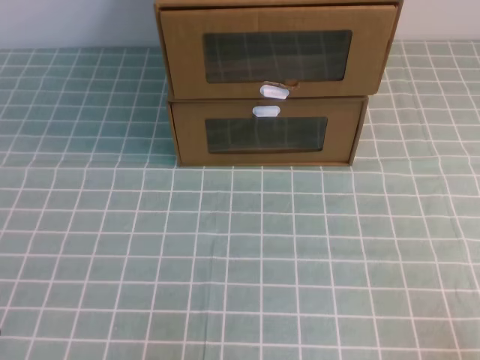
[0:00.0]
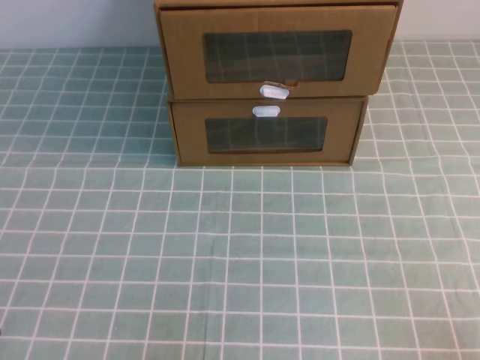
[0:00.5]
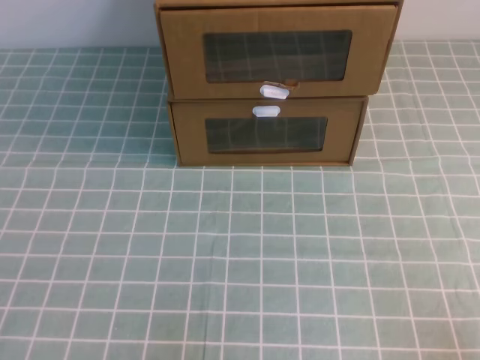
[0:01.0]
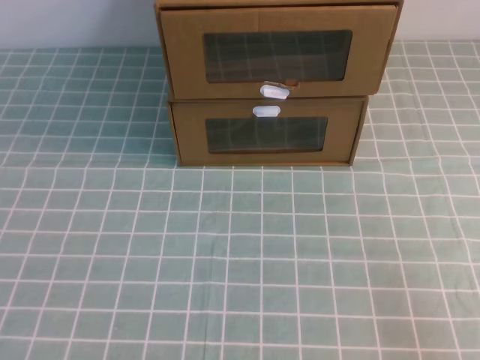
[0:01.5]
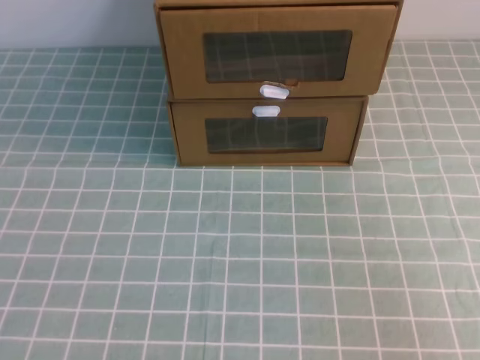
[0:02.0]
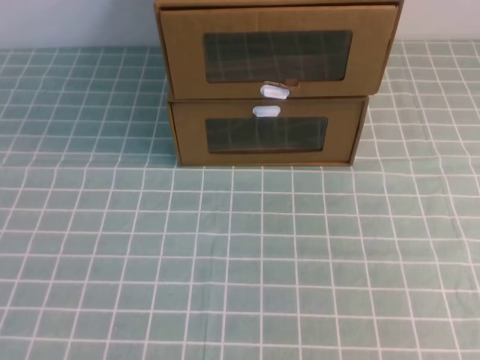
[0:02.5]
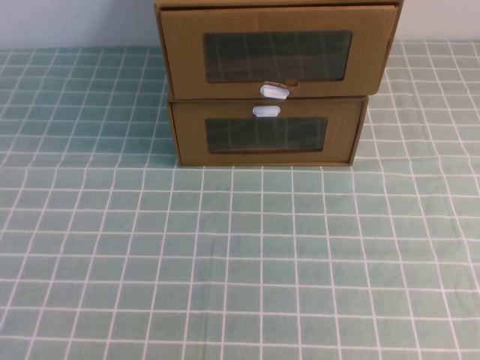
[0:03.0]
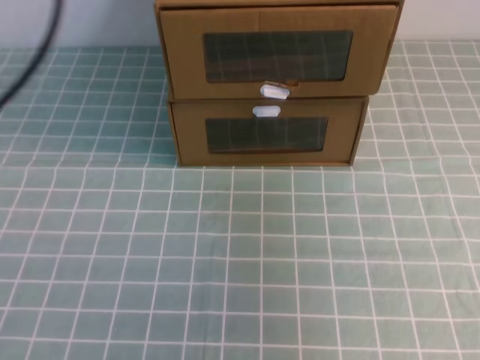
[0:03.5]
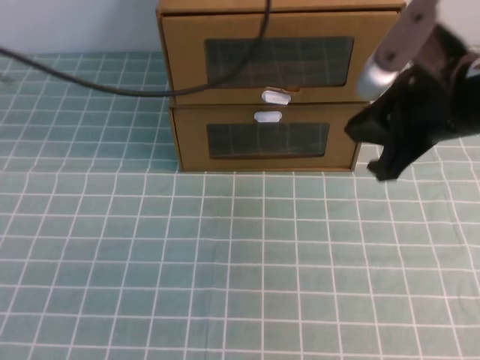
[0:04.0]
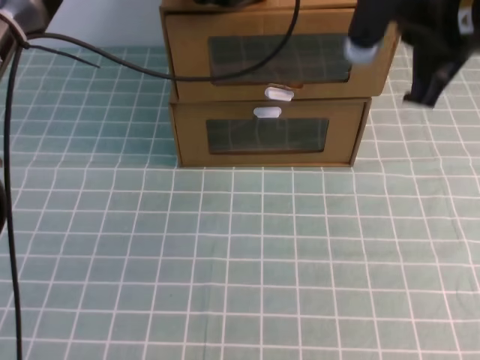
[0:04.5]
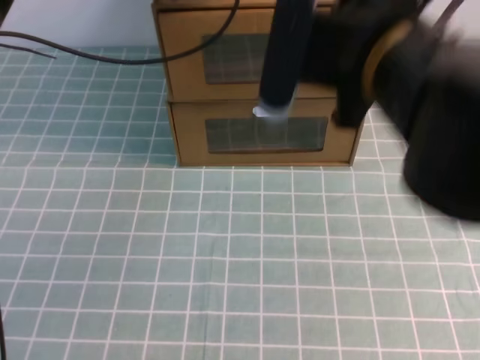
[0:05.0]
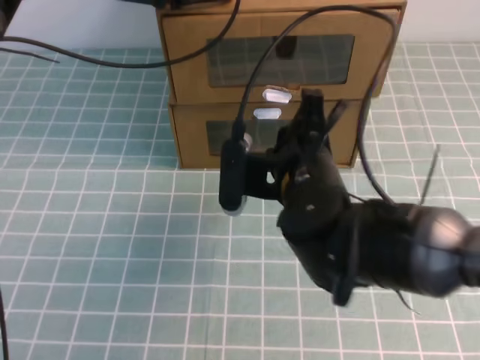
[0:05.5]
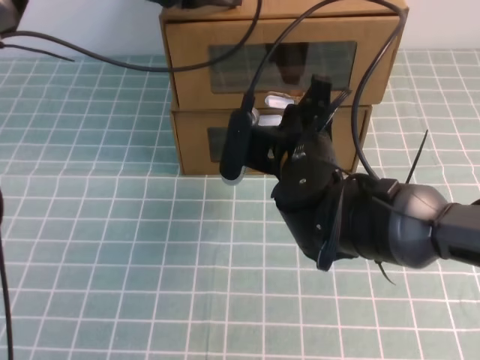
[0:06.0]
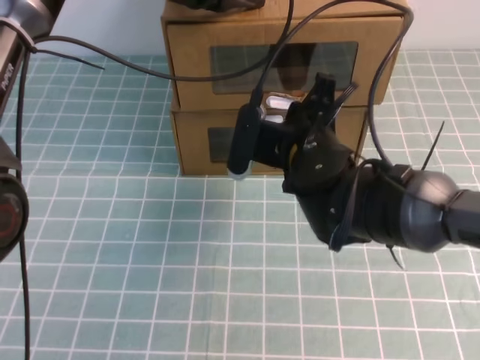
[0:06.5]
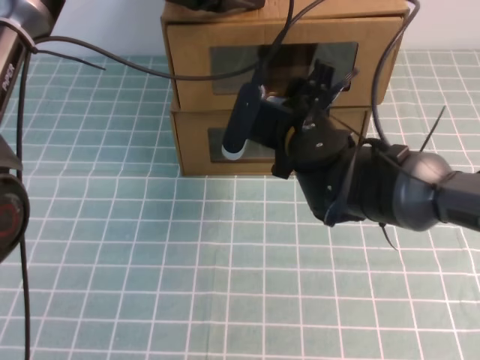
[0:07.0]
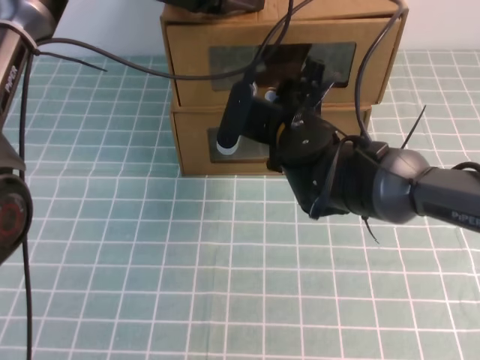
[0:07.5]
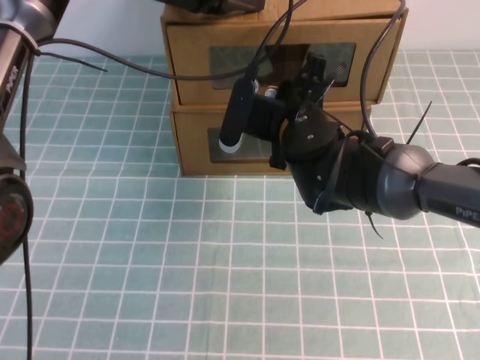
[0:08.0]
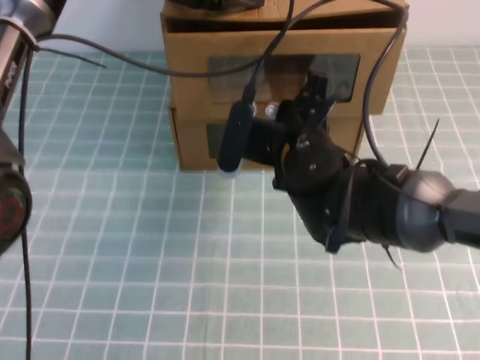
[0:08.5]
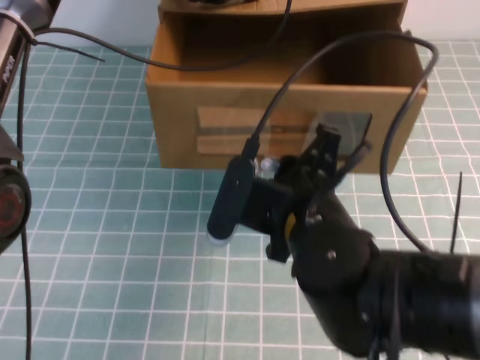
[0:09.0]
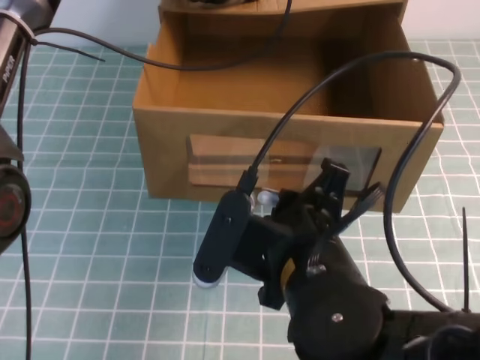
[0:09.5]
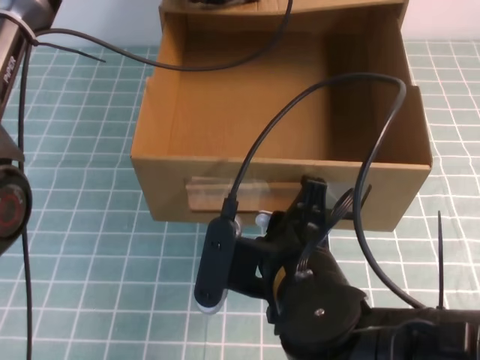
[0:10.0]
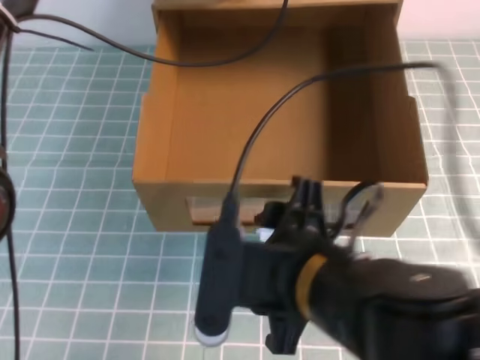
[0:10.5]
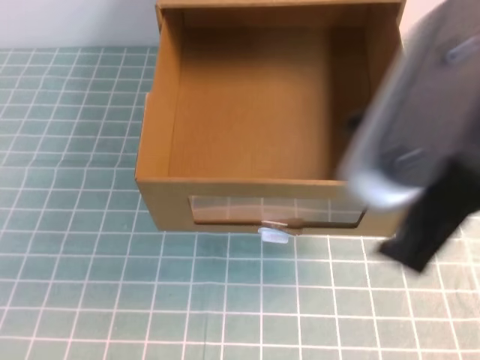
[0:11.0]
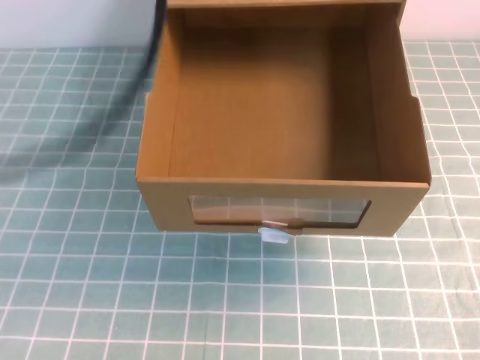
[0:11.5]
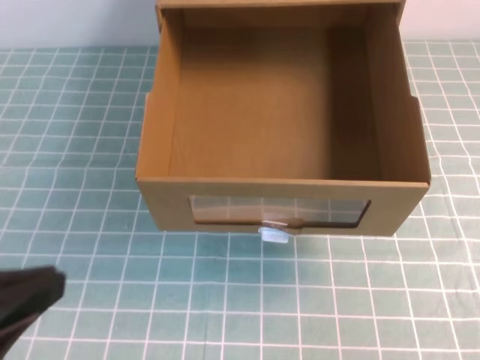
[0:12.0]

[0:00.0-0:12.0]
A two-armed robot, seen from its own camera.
Task of the whole recording: open the shoebox on the cyan tablecloth.
0:02.0 to 0:04.0: The left gripper travels forward, upward and to the right by about 40 cm; the right gripper is displaced forward and to the left by approximately 30 cm.
0:04.0 to 0:06.0: The left gripper travels forward and downward by approximately 10 cm. Meanwhile the right gripper travels to the left and downward by approximately 20 cm, and opens.
0:06.0 to 0:08.0: The right gripper is displaced forward by roughly 5 cm, and opens, then closes again.
0:08.0 to 0:10.0: The right gripper goes approximately 20 cm backward.
0:10.0 to 0:12.0: The right gripper heads to the right and backward, covering approximately 30 cm, and closes its fingers. The left gripper heads backward, covering approximately 40 cm.
